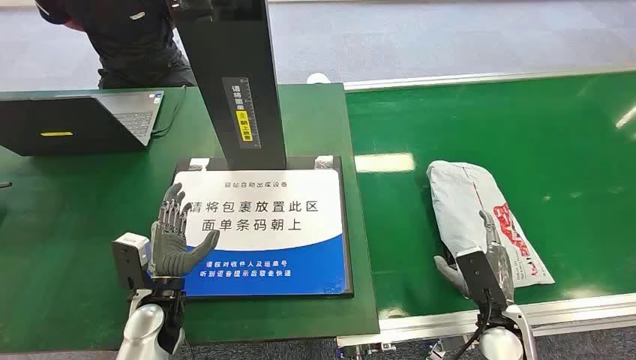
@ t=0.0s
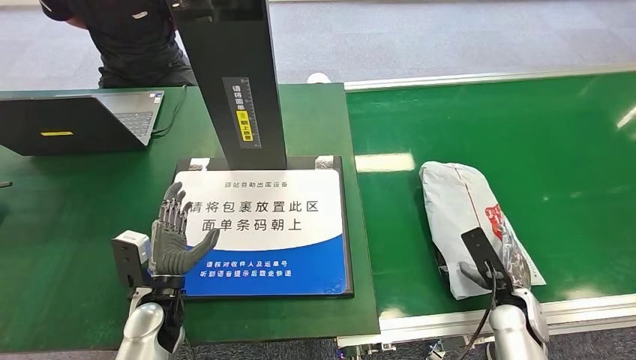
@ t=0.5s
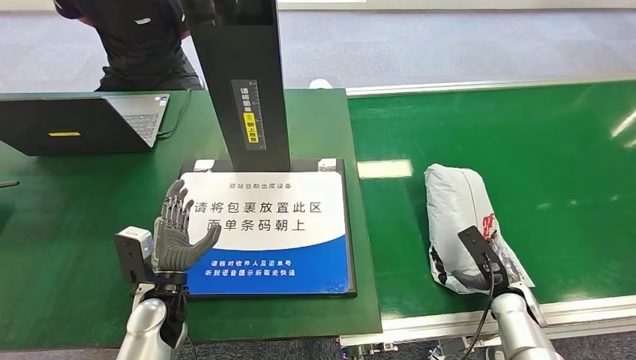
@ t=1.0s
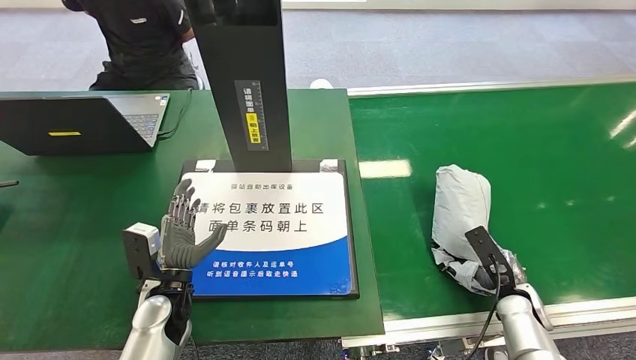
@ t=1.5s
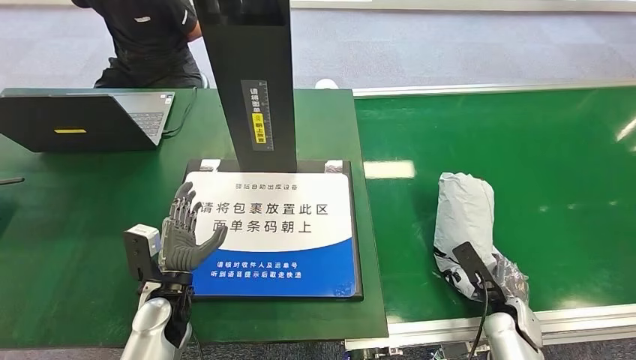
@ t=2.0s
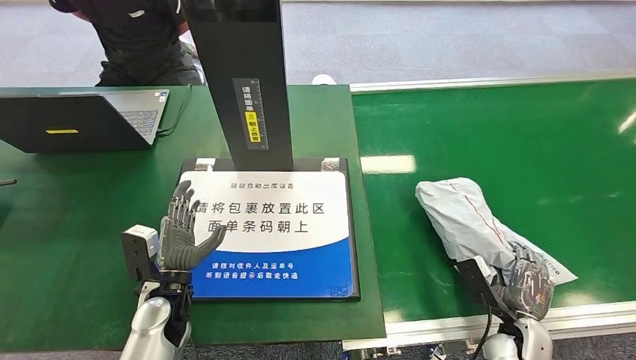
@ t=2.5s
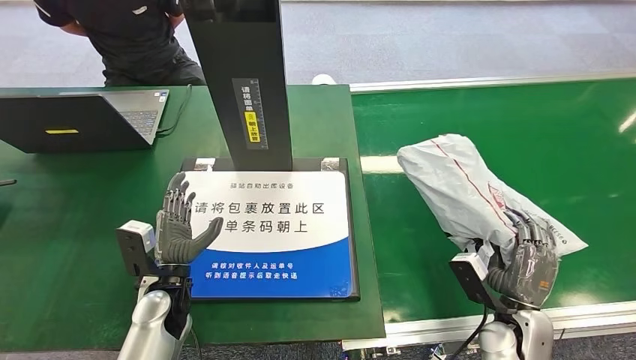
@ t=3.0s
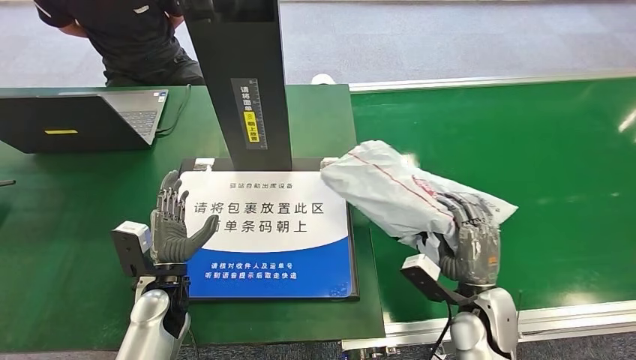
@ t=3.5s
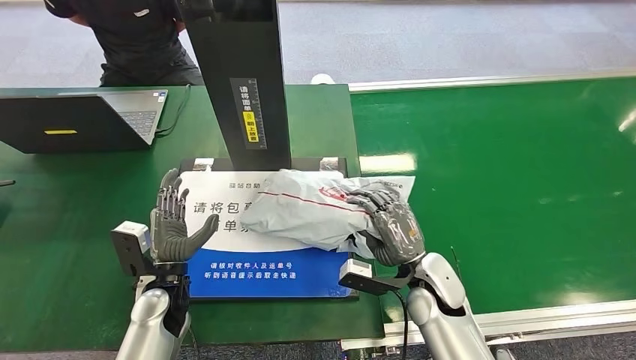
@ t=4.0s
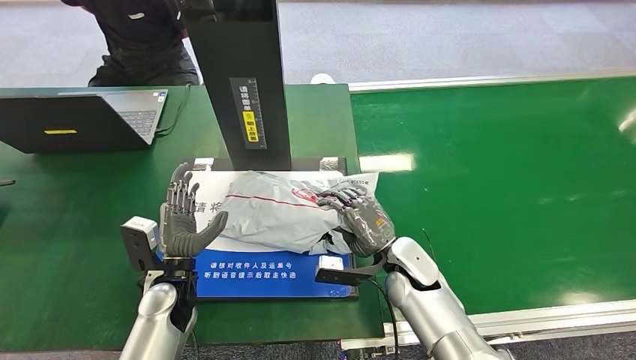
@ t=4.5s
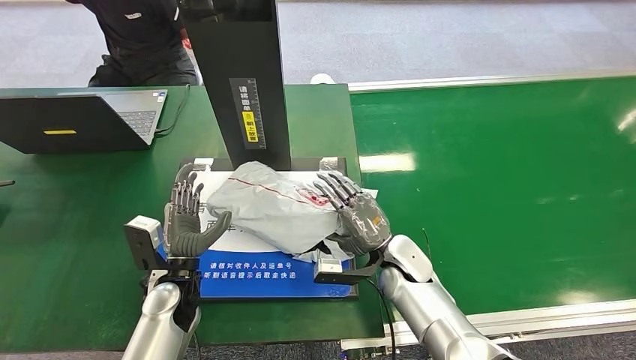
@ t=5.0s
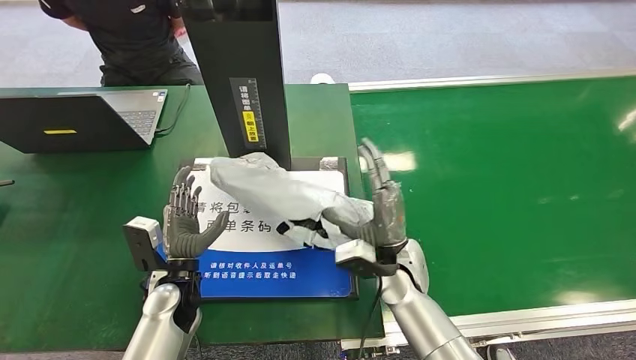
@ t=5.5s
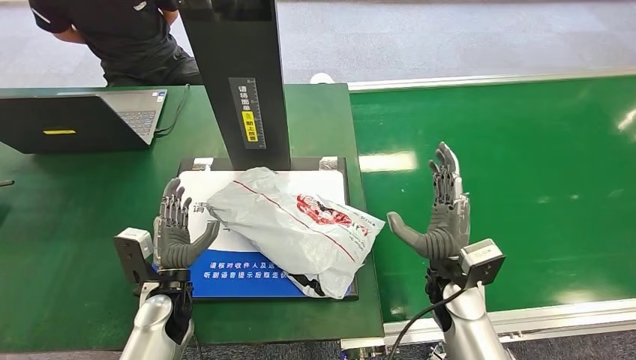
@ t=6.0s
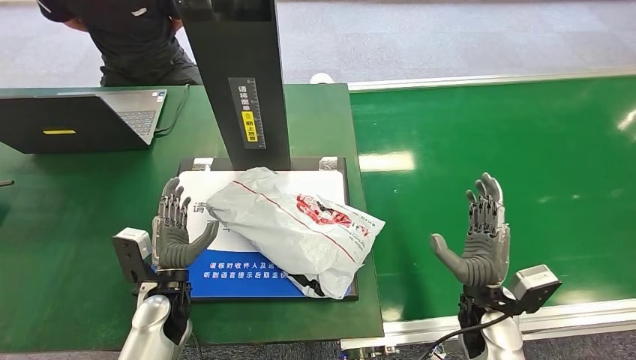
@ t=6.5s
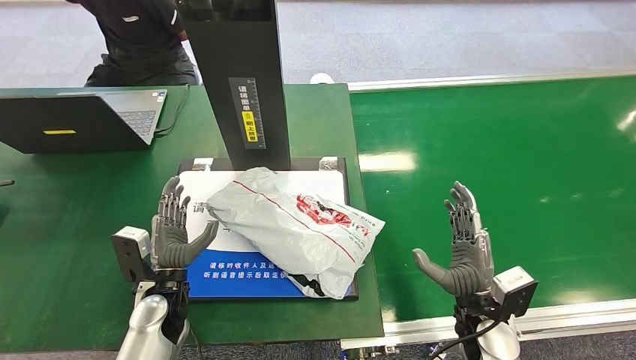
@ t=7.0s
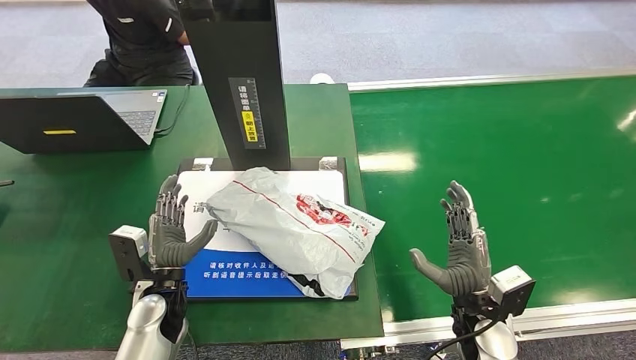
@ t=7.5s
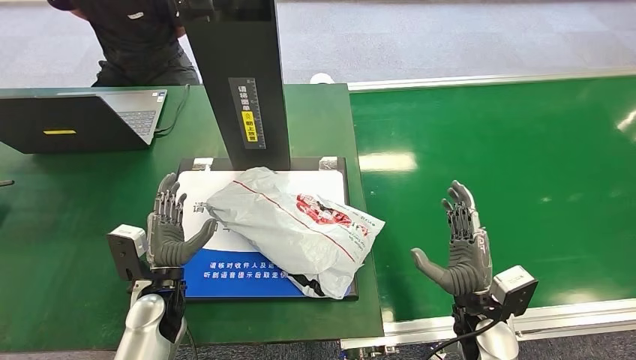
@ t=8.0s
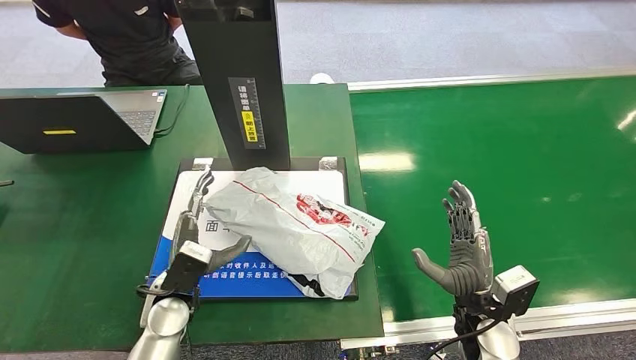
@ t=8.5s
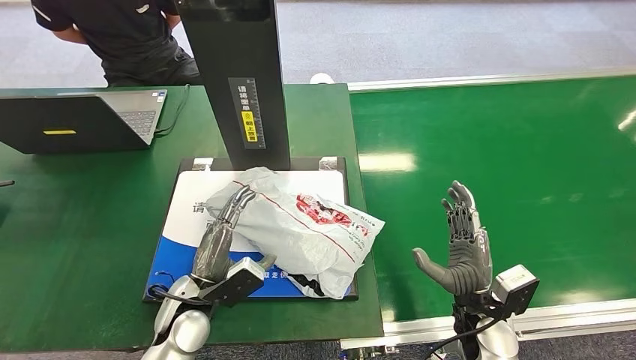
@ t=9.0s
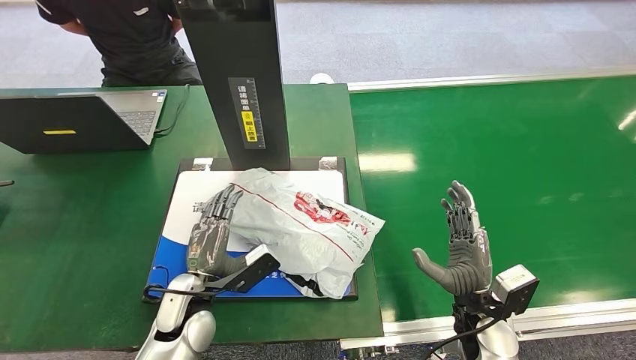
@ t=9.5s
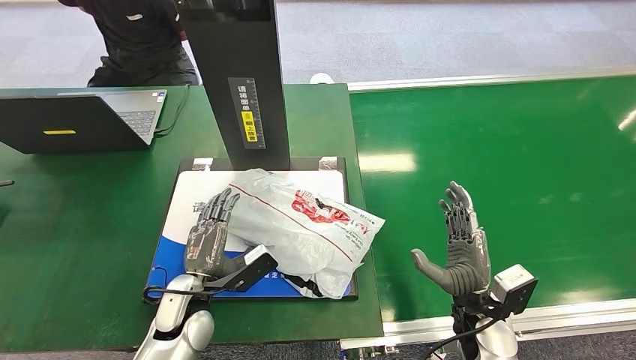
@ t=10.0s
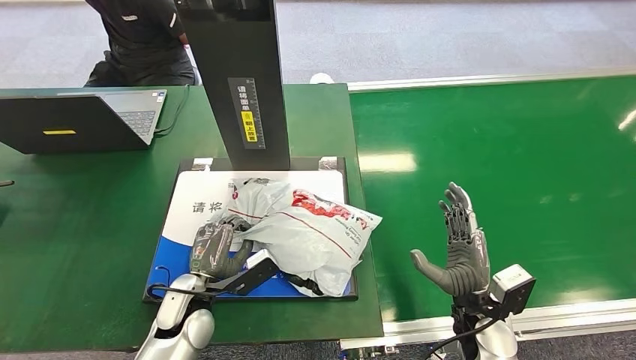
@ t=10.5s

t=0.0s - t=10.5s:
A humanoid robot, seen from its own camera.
Step, t=0.0s - t=2.5s: Pick up the package from the conveyor belt.
Step, t=3.0s - t=6.0s: Place the package onto the inbound machine.
t=4.0s - t=6.5s: The right hand is displaced to the right by some 10 cm.

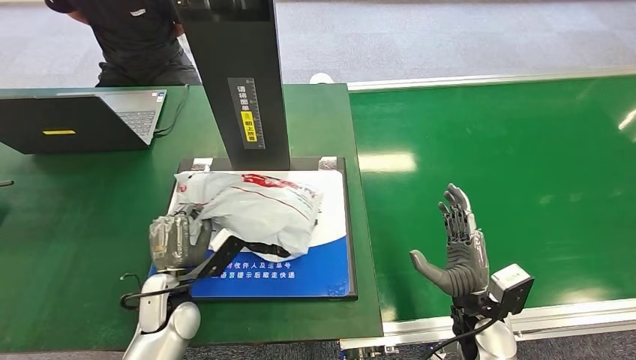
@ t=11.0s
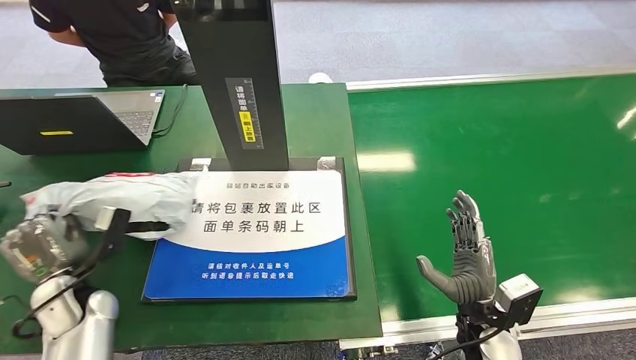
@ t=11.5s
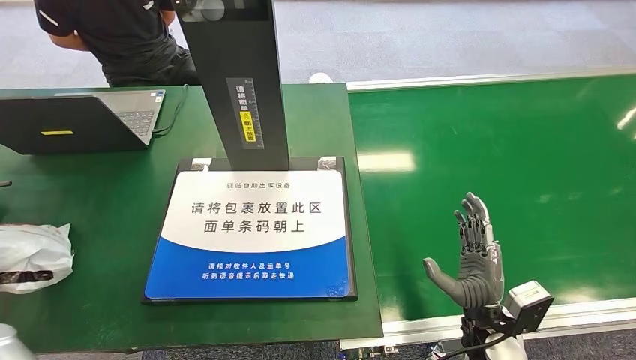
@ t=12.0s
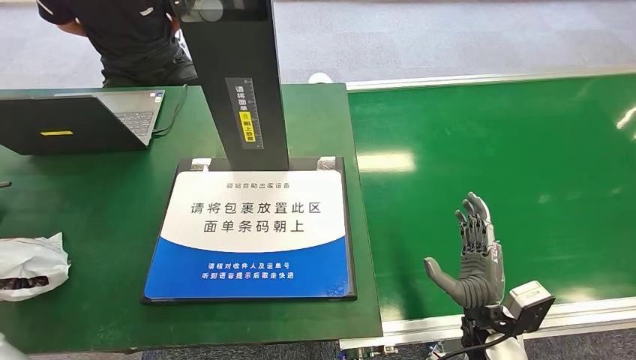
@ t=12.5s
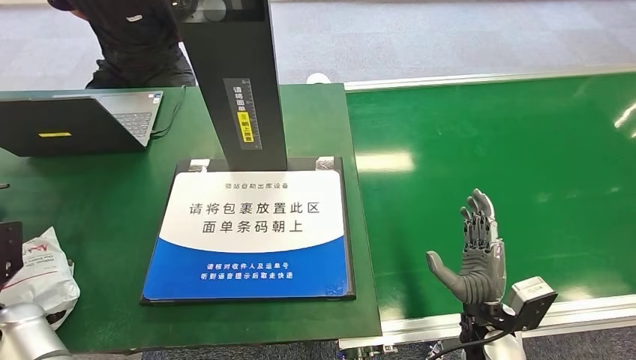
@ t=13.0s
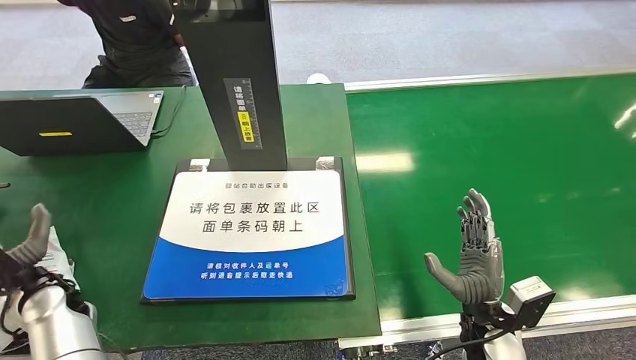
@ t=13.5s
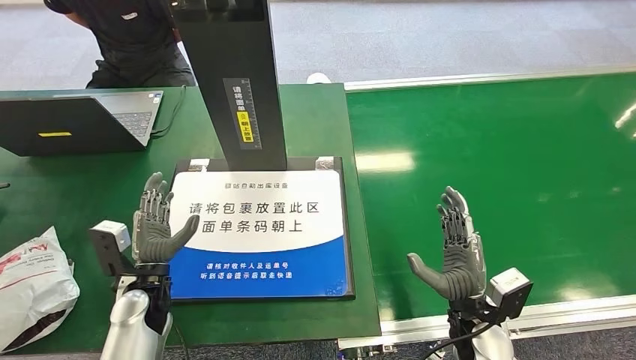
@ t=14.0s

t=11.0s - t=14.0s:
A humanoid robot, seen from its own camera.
Step, t=12.0s - t=14.0s: Place the package into the parcel locker.
t=11.0s - t=12.5s: The left hand moves to the left, approximately 30 cm.
t=12.5s - t=14.0s: The left hand heads to the right, covering about 25 cm.
